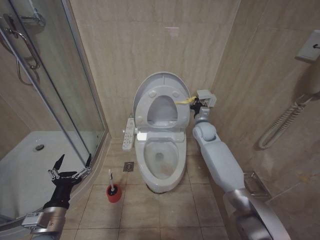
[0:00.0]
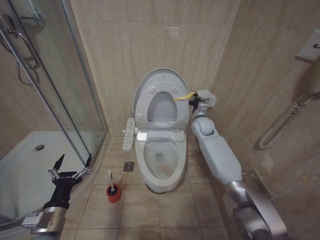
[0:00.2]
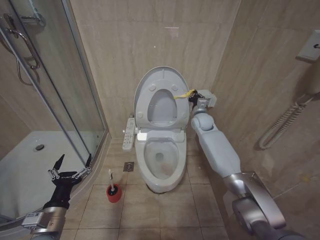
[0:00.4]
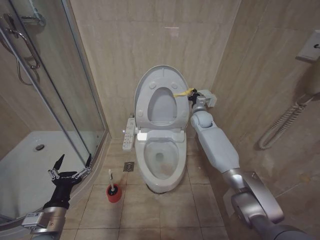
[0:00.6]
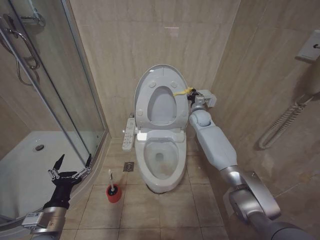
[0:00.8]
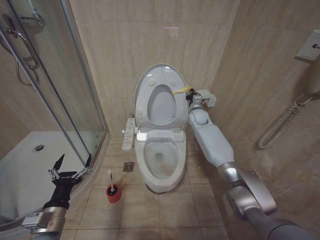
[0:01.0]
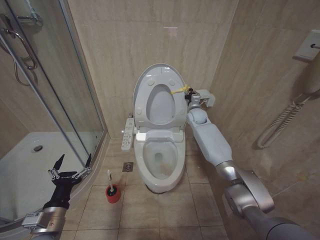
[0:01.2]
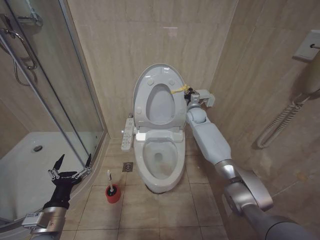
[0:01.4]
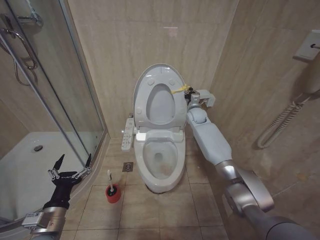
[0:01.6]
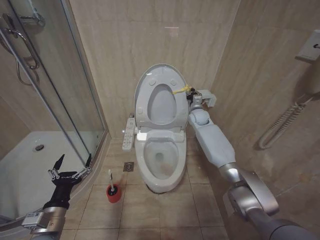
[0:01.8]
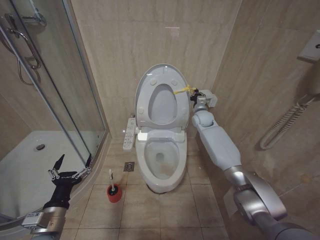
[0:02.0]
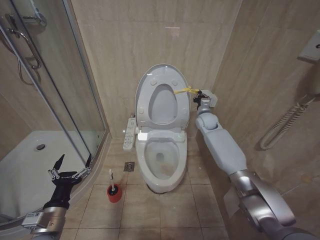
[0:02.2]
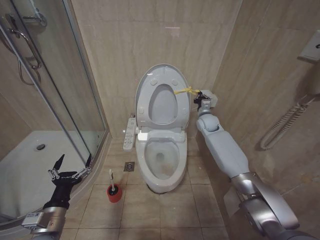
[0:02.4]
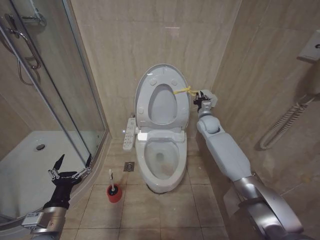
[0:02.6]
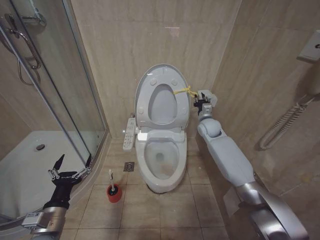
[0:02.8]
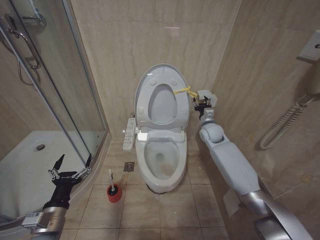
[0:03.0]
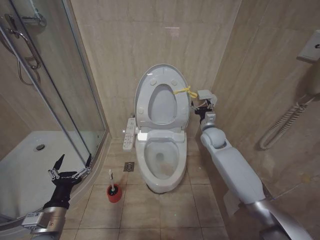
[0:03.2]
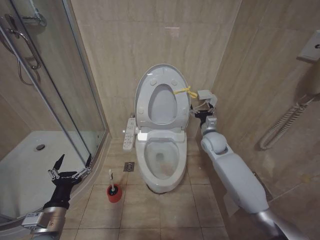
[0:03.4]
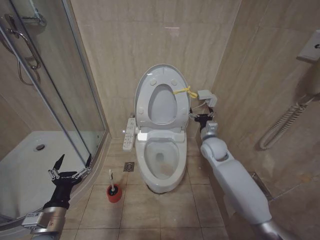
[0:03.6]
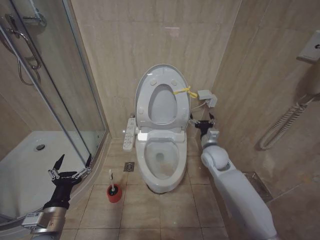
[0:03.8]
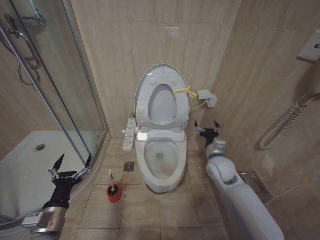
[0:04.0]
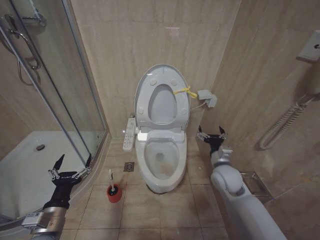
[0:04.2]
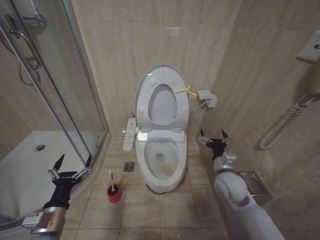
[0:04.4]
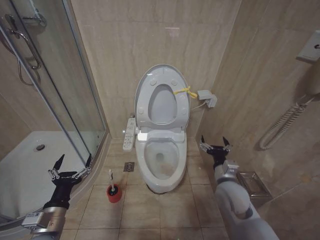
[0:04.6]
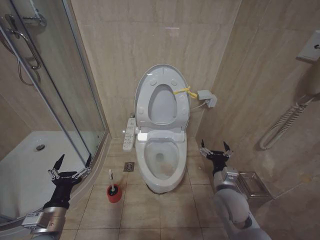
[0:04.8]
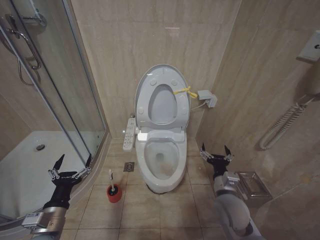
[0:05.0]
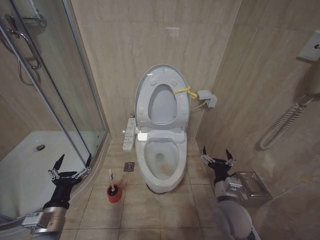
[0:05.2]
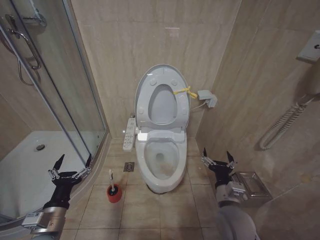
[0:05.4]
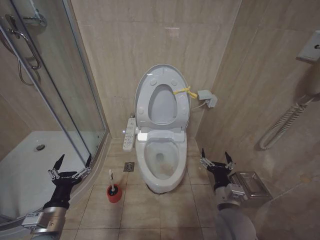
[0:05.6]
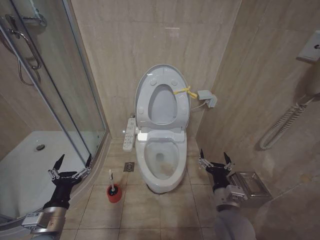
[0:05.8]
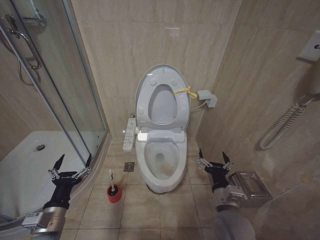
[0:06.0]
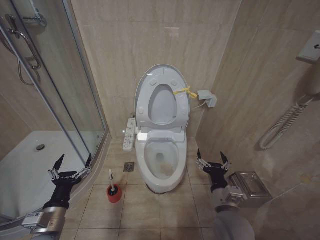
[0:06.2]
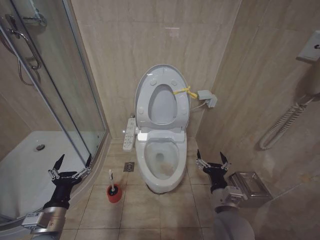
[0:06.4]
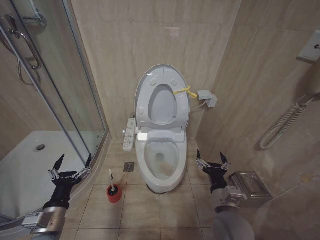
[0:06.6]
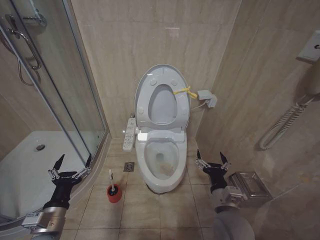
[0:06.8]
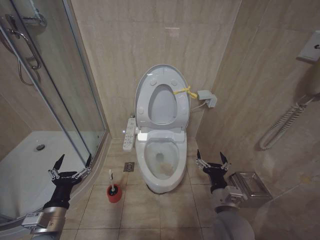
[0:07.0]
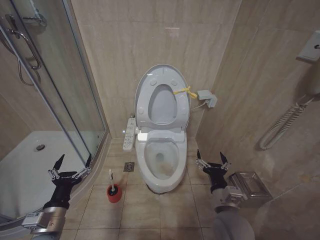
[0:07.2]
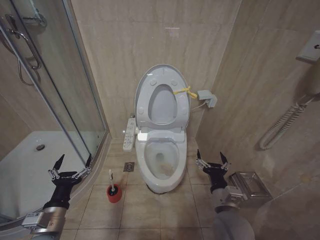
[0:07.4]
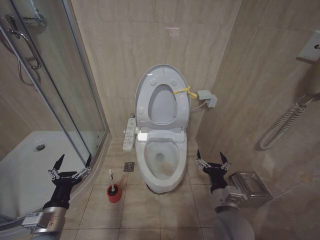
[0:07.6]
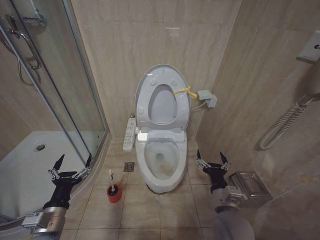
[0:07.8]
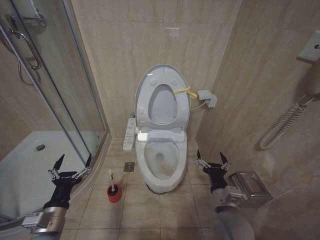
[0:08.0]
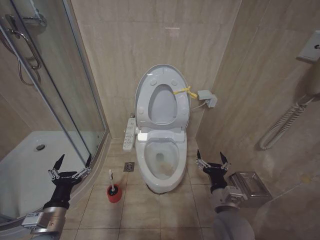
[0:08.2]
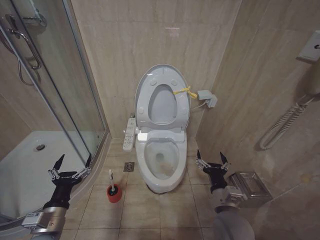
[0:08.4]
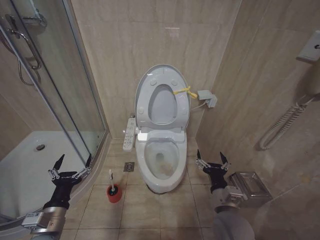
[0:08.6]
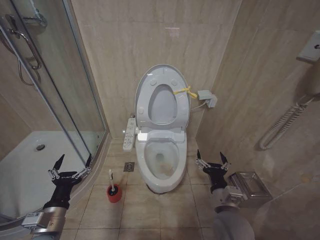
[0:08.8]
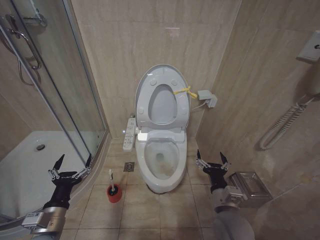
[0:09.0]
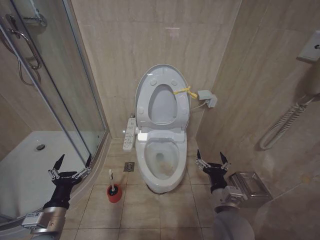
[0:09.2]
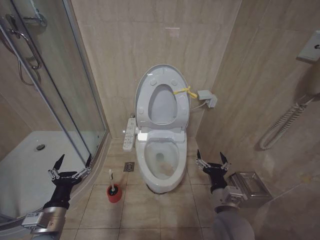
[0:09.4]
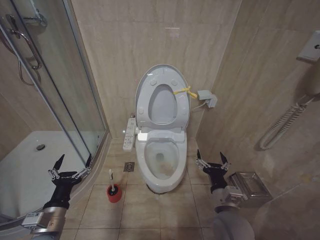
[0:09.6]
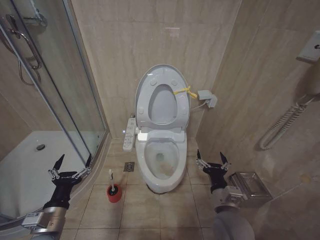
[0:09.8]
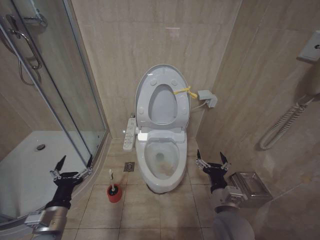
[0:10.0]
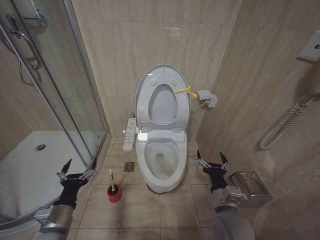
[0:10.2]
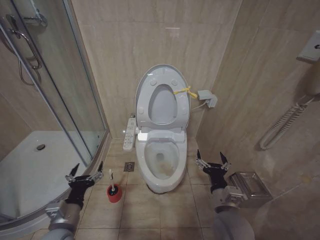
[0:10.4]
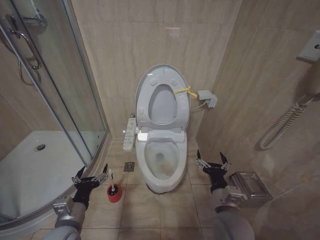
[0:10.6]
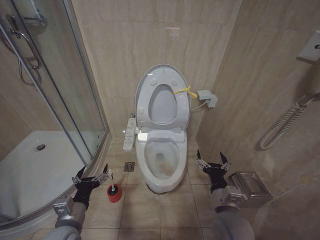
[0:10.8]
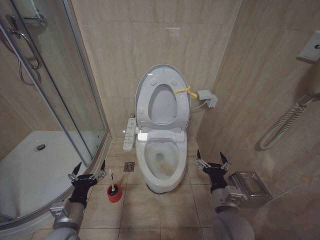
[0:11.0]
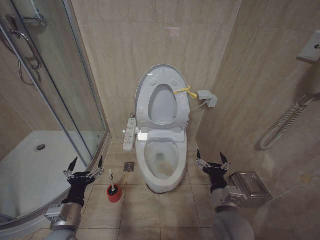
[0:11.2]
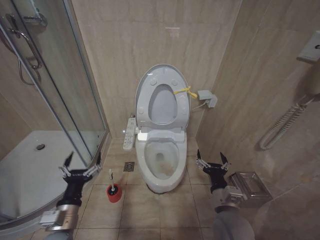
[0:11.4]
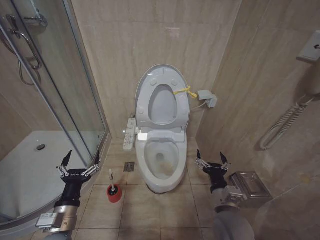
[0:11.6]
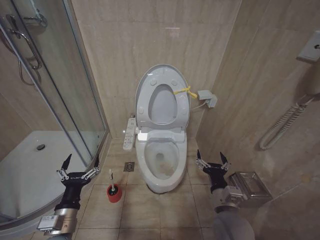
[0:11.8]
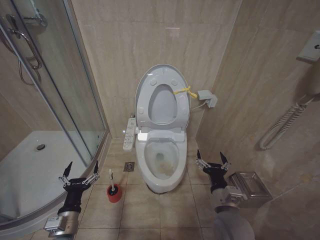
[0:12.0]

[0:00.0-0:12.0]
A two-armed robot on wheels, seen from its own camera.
Task of the whole recording: Open the toilet lid, clean the toilet bowl with a toilet brush, close the toilet lid, and flush.
0:00.0 to 0:01.6: The right gripper travels forward by approximately 10 cm.
0:01.6 to 0:03.0: The right gripper goes some 10 cm backward, and opens.
0:03.0 to 0:04.4: The right gripper moves backward, roughly 20 cm, and opens.
0:04.4 to 0:06.0: The right gripper heads backward, covering roughly 10 cm.
0:06.0 to 0:09.0: Neither gripper changes place.
0:09.0 to 0:10.4: The grippers move only a little.
0:10.4 to 0:12.0: The grippers move only a little.

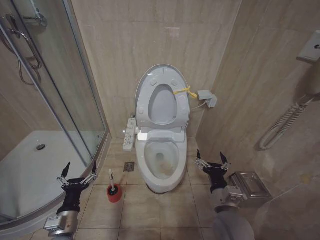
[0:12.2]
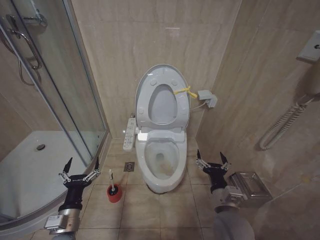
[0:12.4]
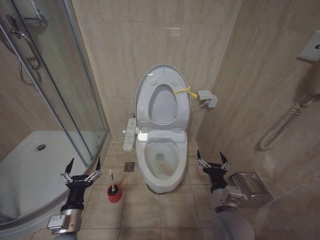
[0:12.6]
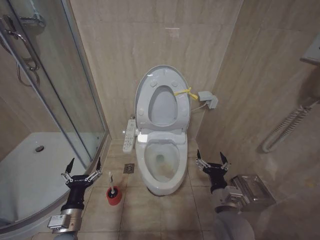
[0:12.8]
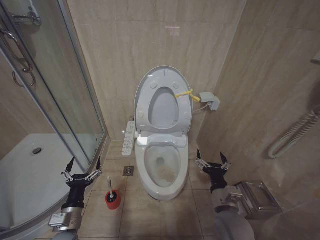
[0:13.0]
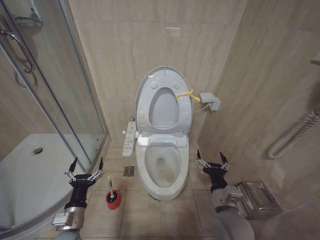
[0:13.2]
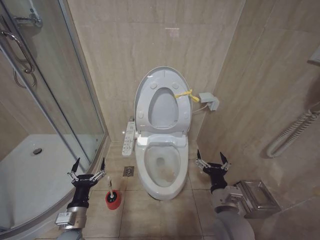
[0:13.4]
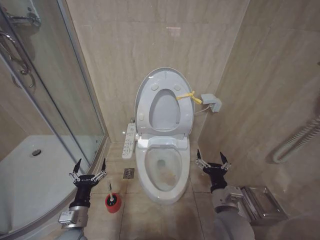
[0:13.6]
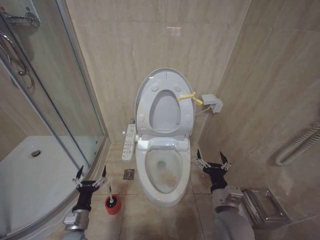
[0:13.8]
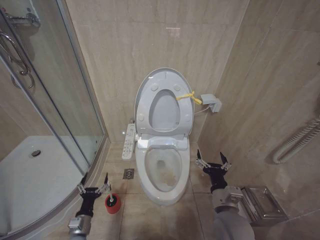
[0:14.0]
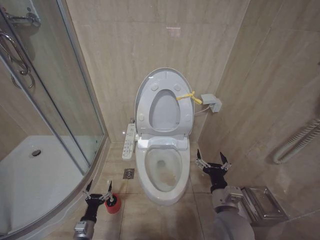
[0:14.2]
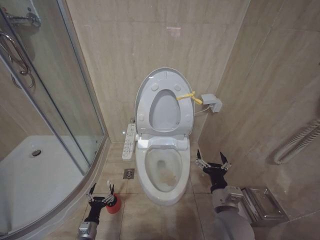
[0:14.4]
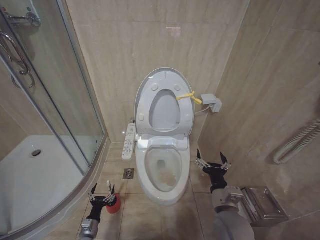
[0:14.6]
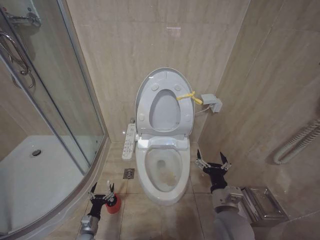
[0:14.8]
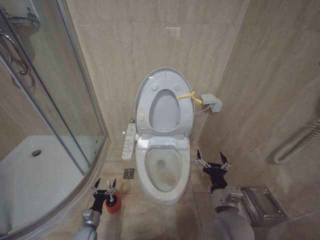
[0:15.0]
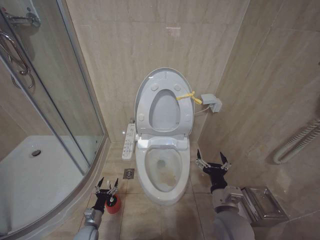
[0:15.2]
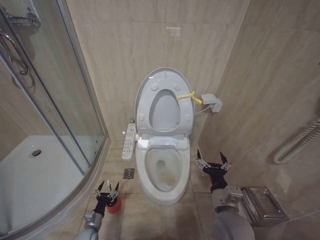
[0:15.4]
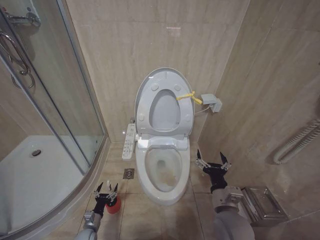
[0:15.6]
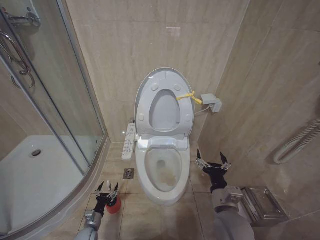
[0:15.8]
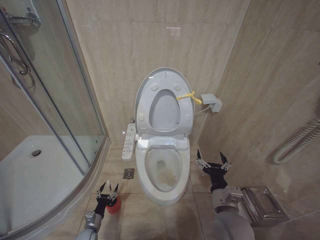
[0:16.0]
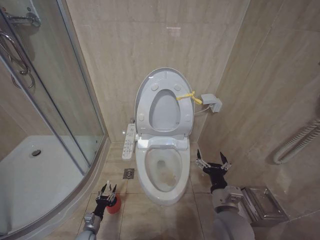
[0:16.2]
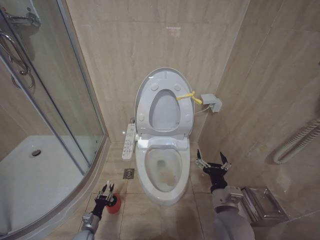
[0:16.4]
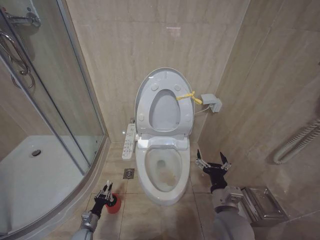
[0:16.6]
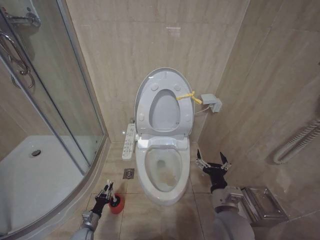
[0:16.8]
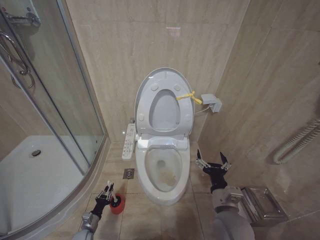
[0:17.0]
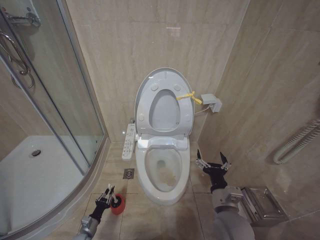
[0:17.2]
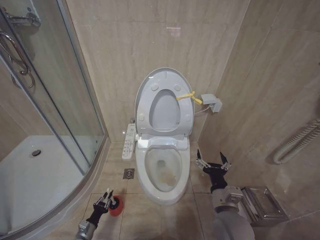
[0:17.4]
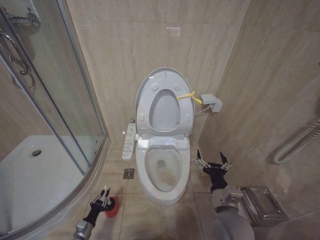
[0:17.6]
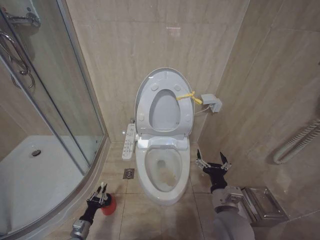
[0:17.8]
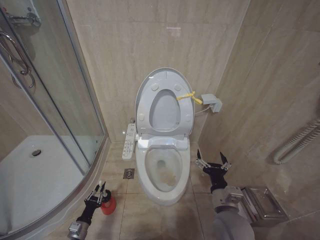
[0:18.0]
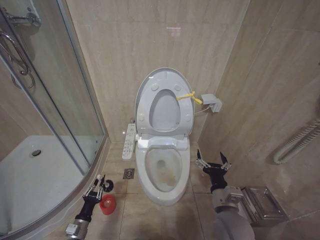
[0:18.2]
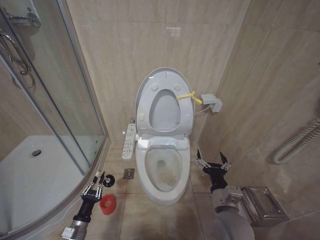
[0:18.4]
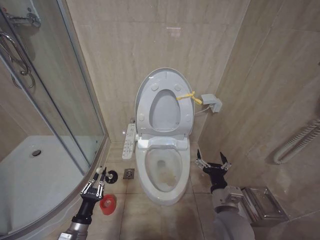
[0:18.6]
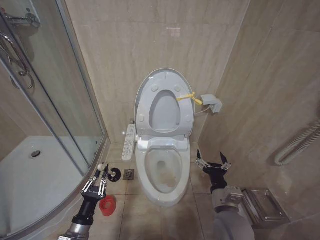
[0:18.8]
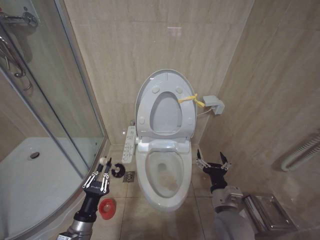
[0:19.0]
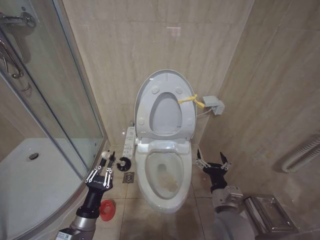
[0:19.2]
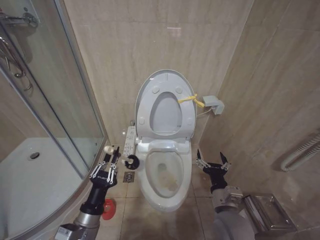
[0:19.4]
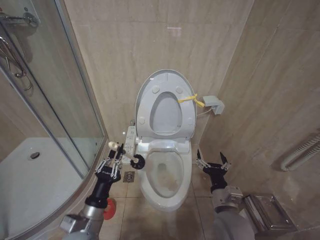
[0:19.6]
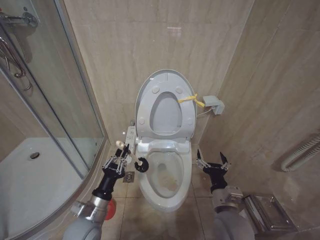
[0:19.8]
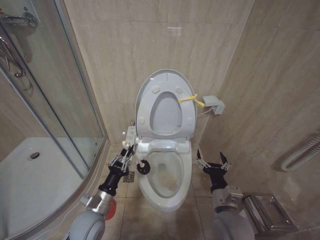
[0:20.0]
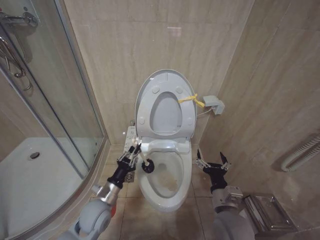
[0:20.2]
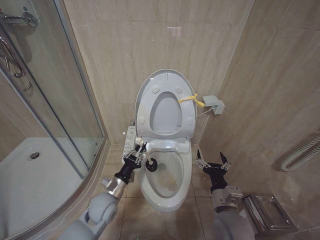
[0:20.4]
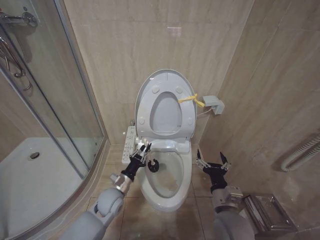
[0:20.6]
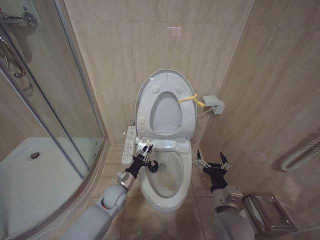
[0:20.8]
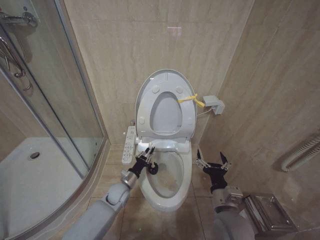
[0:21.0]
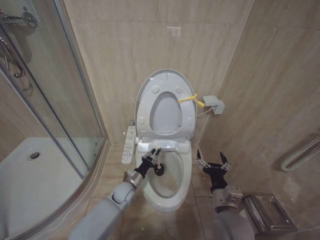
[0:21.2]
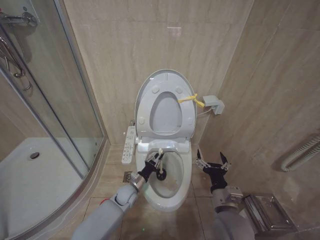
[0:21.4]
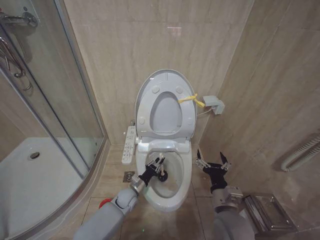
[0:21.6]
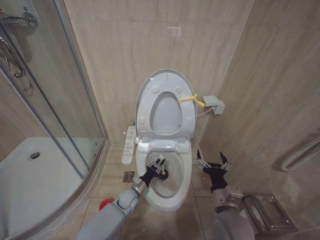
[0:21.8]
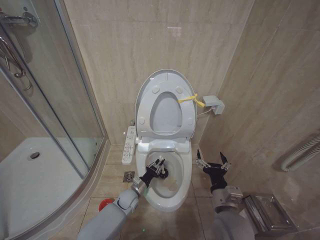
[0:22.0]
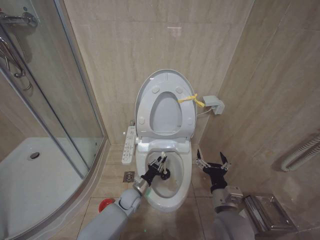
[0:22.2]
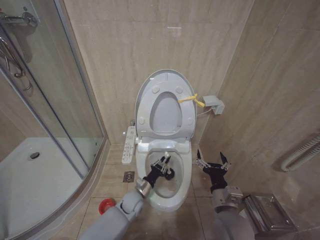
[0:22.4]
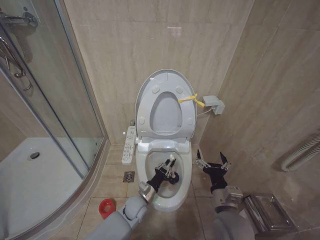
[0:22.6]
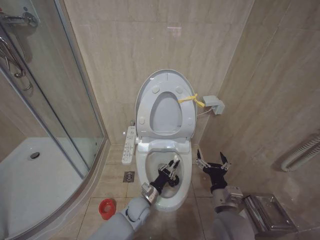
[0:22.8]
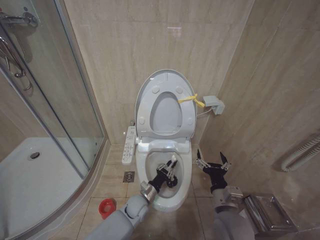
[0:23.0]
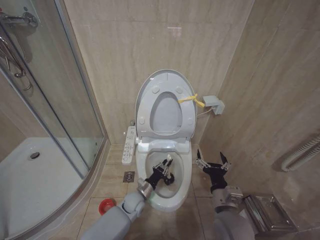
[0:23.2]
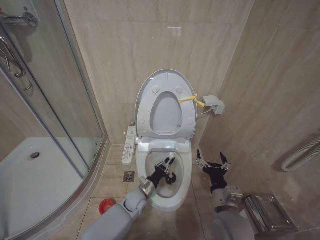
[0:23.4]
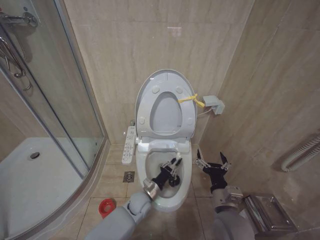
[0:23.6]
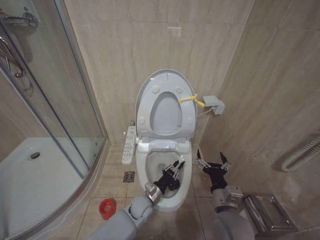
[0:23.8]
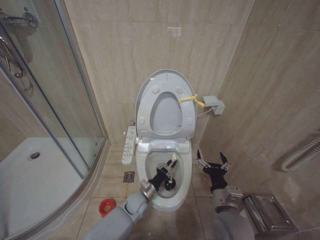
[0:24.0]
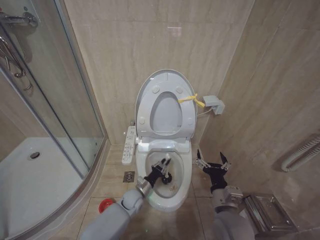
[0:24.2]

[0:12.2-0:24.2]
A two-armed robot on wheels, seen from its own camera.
Task of the whole recording: Open the toilet lid, clean the toilet bowl with a toilet brush, close the toilet lid, and flush.
0:12.2 to 0:13.8: The grippers make only small movements.
0:13.8 to 0:15.2: The left gripper moves downward, some 20 cm.
0:15.2 to 0:16.6: The left gripper moves about 5 cm, and closes up.
0:16.6 to 0:18.2: The left gripper moves upward and backward, approximately 10 cm.
0:18.2 to 0:19.8: The left gripper shifts approximately 25 cm upward and to the right.
0:19.8 to 0:21.2: The left gripper goes some 20 cm forward and downward.
0:21.2 to 0:22.6: The left gripper moves to the right, about 5 cm.
0:22.6 to 0:24.2: The grippers stay close to where they were, moving slightly.
